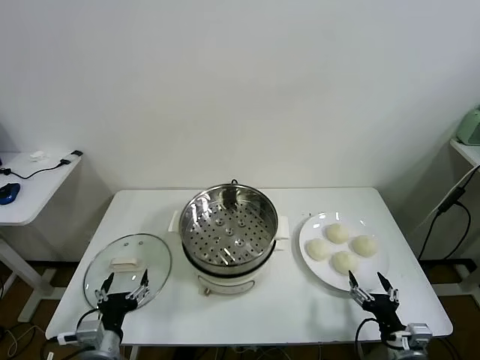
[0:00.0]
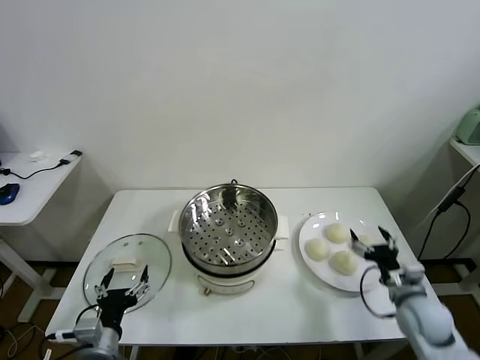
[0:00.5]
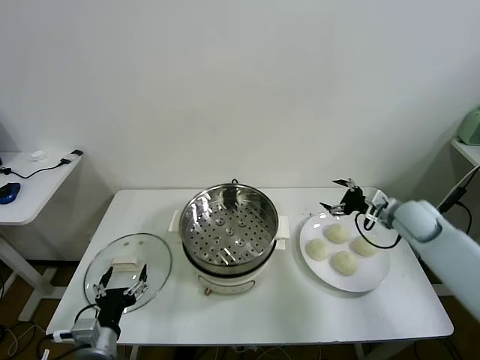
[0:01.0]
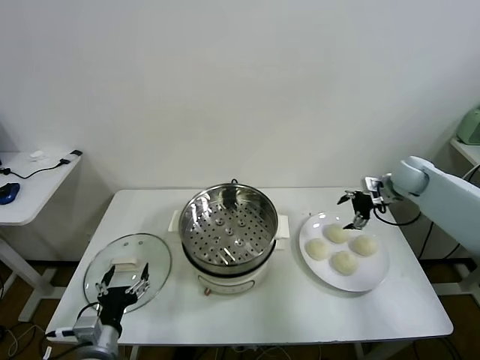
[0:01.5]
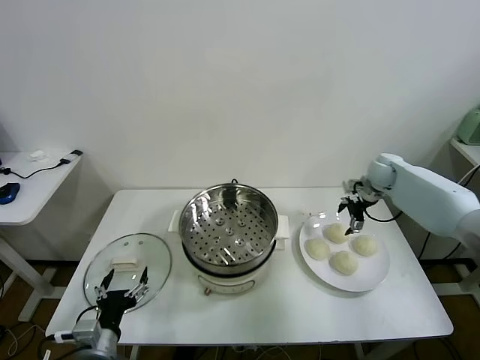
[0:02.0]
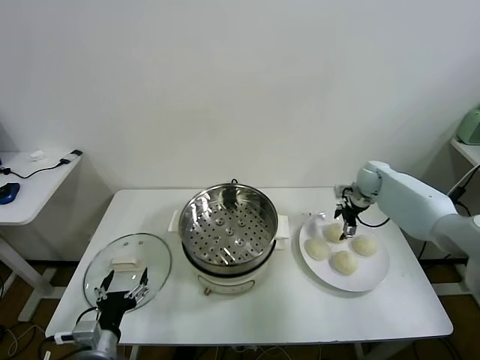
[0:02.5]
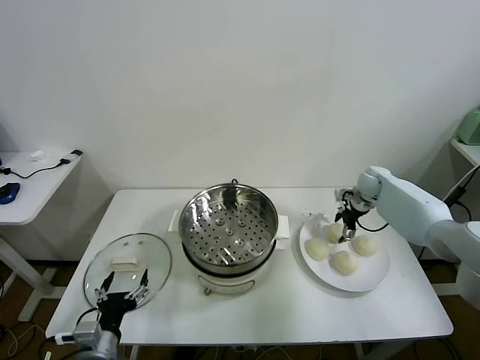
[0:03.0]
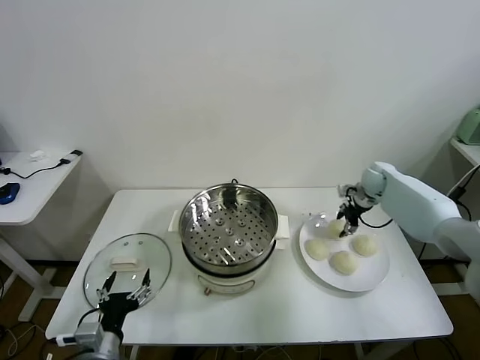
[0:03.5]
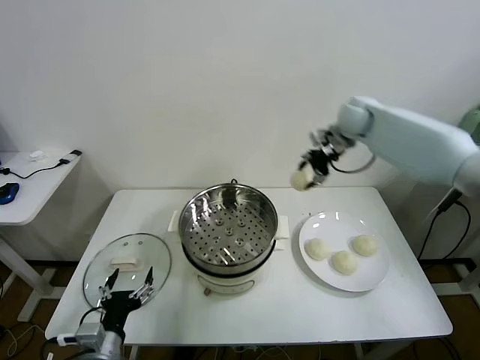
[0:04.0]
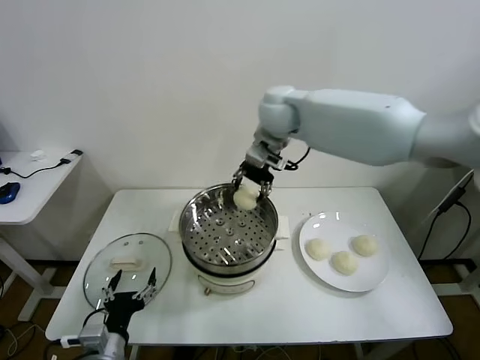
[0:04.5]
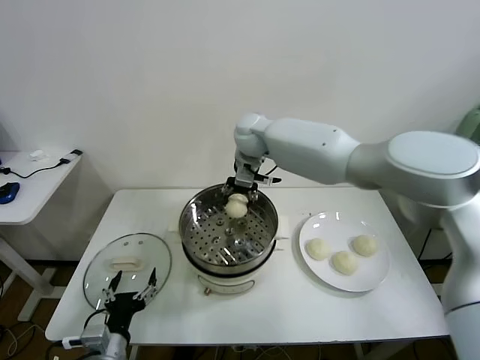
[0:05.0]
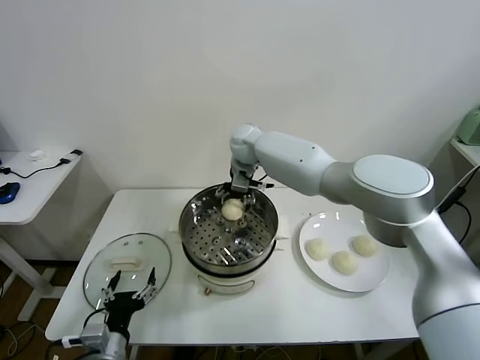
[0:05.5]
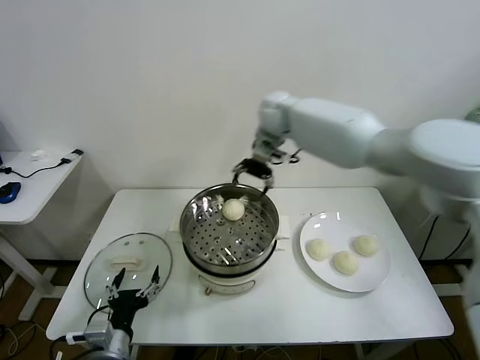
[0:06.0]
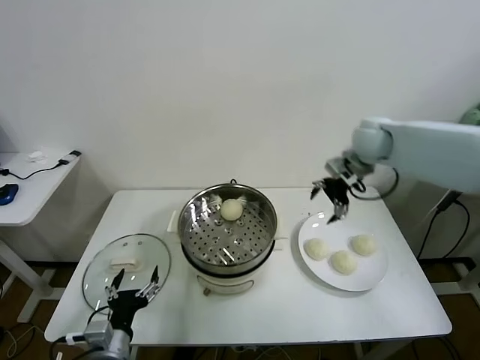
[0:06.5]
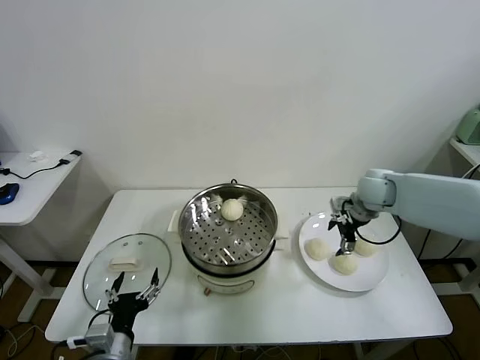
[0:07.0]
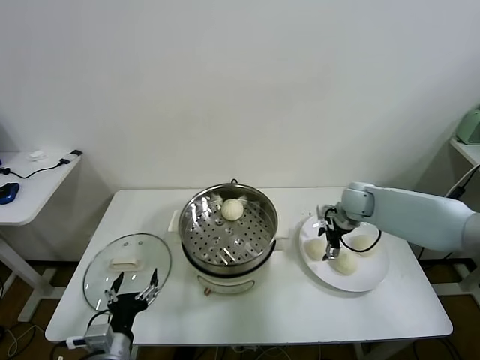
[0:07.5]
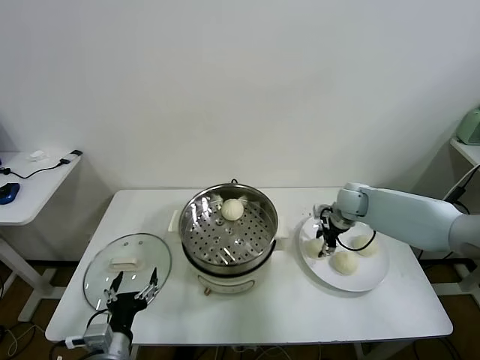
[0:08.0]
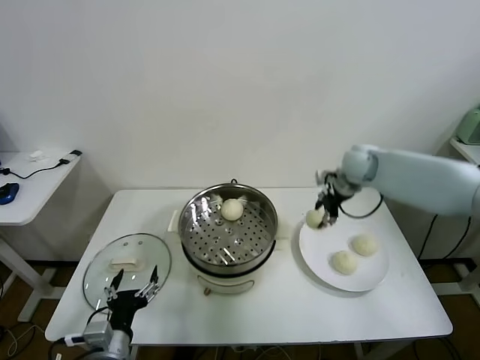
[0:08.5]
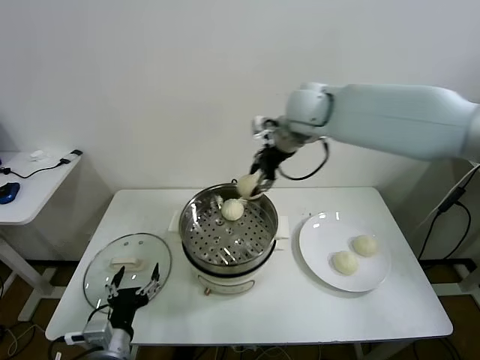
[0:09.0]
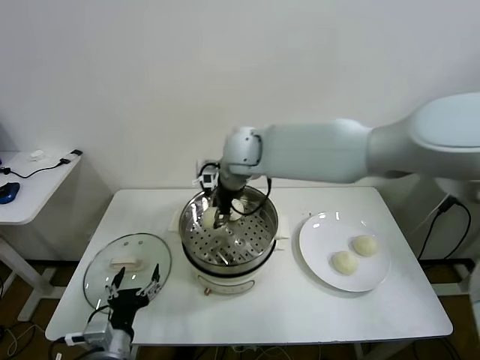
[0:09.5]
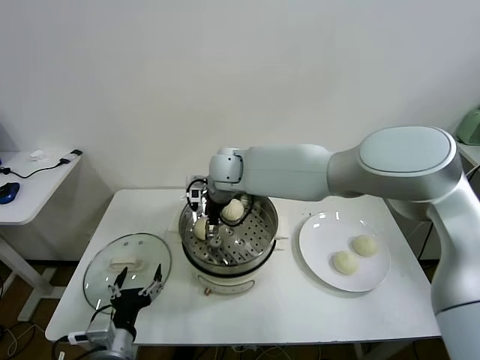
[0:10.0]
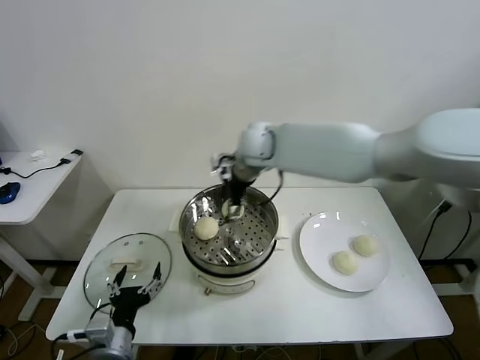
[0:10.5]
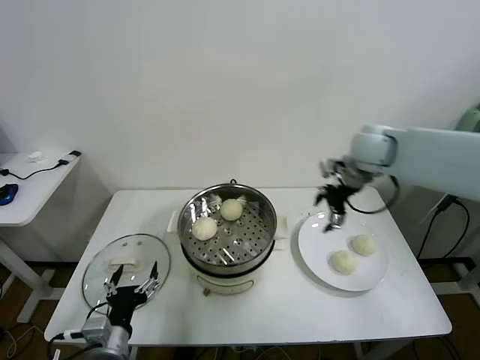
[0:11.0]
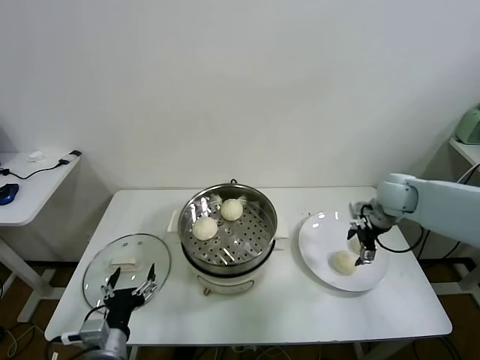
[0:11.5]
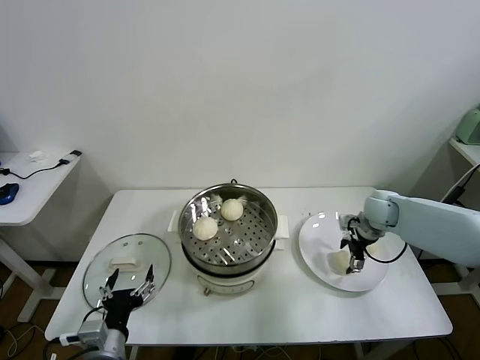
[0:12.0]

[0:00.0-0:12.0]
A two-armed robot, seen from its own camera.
Task of the whole recording: take steamed baozi put them in steamer.
Step, 0:00.0 to 0:03.0: Grasp the baozi in the plate with right gripper.
Step, 0:03.5 to 0:05.5: Place the baozi on the steamer with right gripper.
Step, 0:06.0 to 0:08.0: Grasp the baozi in the plate with right gripper.
Step, 0:08.5 to 0:10.0: Place the baozi on the steamer with right gripper.
0:02.0 to 0:04.0: The right gripper heads upward and to the left, covering approximately 25 cm, and closes its fingers.
0:04.0 to 0:06.0: The right gripper travels to the left by some 5 cm, and opens.
0:06.0 to 0:08.0: The right gripper heads downward and to the right, covering some 30 cm, and closes its fingers.
0:08.0 to 0:10.0: The right gripper is displaced to the left by some 35 cm, and opens its fingers.
0:10.0 to 0:12.0: The right gripper goes roughly 40 cm to the right.

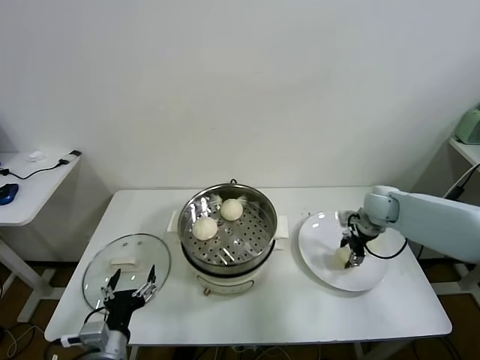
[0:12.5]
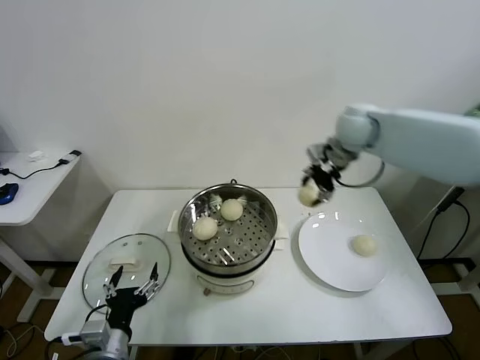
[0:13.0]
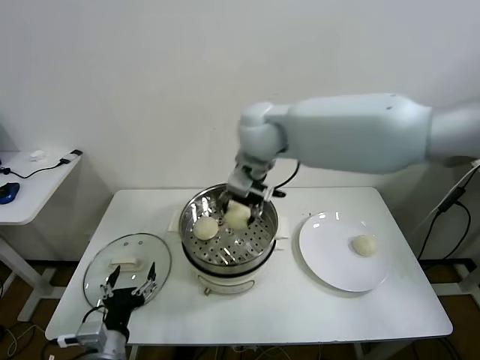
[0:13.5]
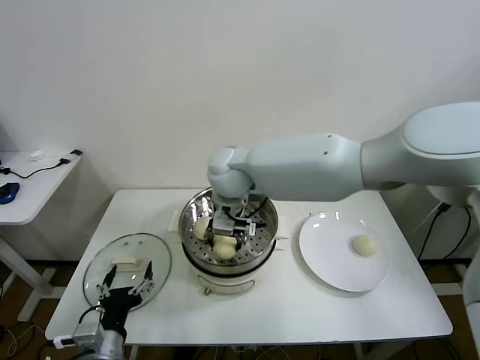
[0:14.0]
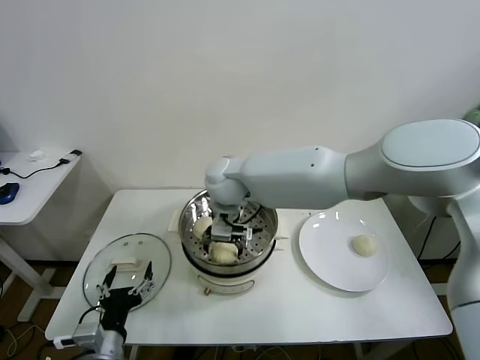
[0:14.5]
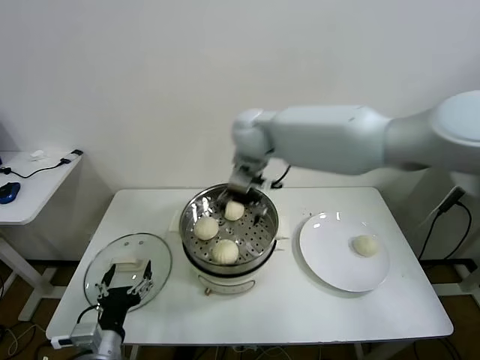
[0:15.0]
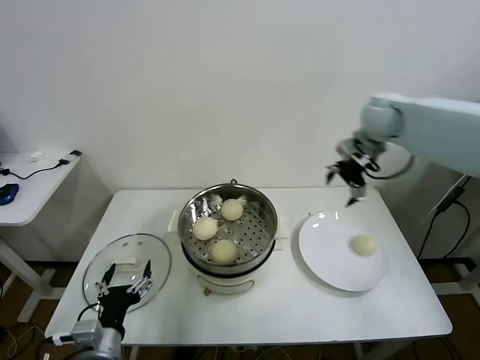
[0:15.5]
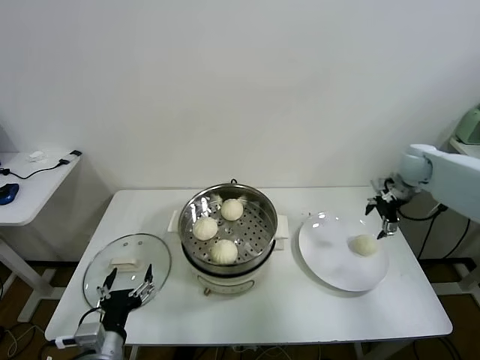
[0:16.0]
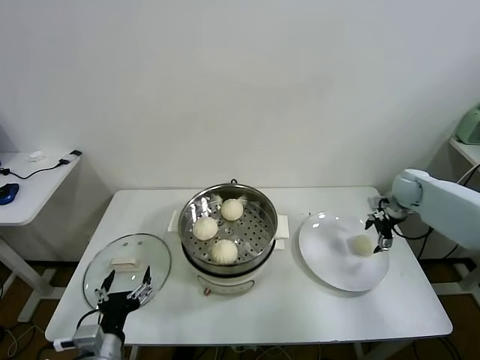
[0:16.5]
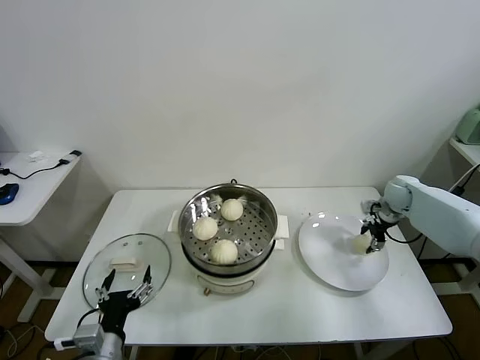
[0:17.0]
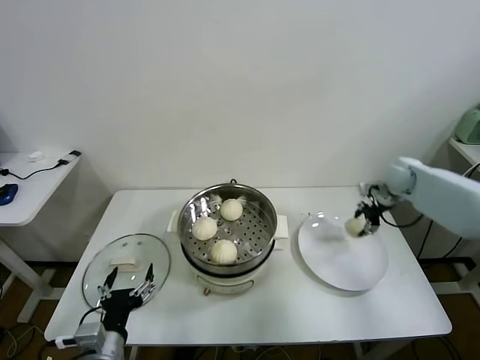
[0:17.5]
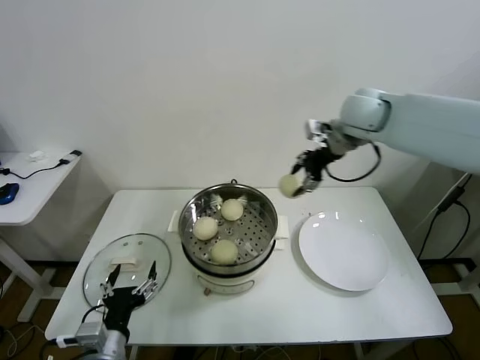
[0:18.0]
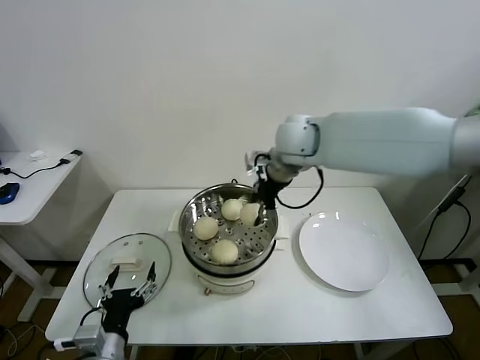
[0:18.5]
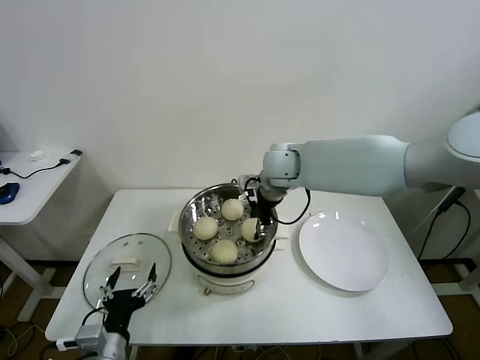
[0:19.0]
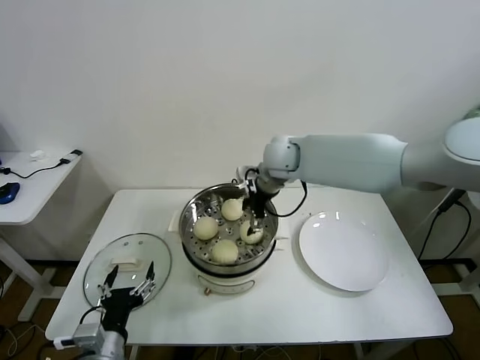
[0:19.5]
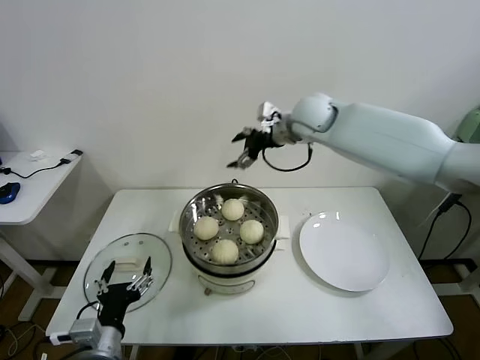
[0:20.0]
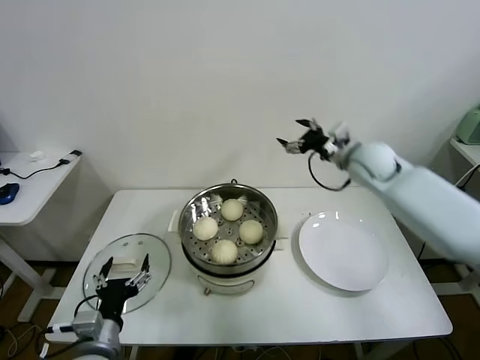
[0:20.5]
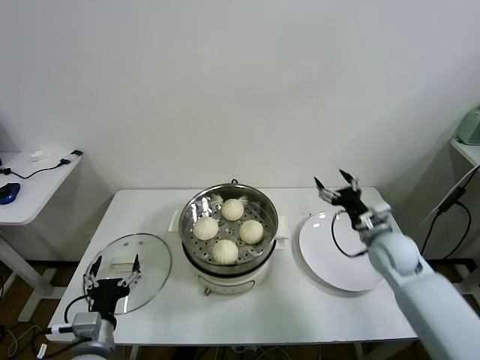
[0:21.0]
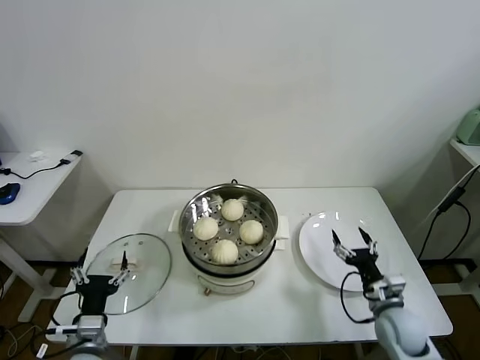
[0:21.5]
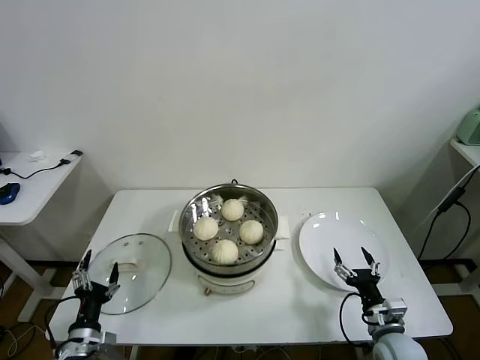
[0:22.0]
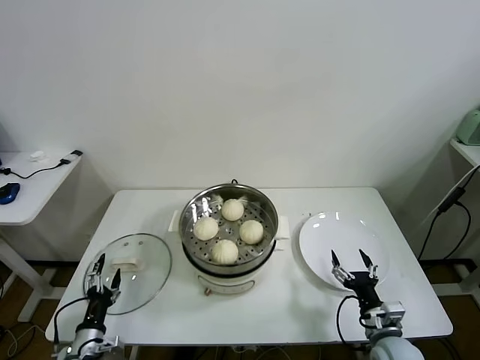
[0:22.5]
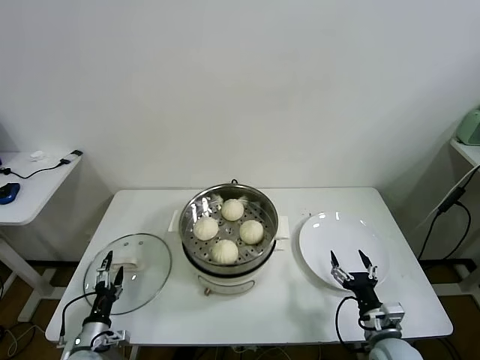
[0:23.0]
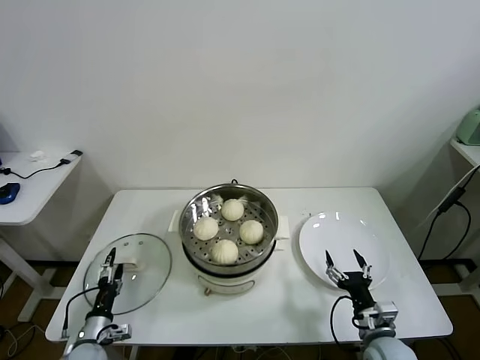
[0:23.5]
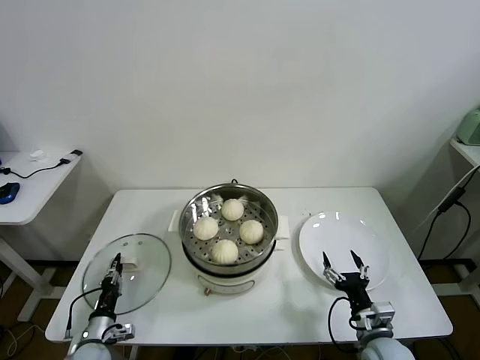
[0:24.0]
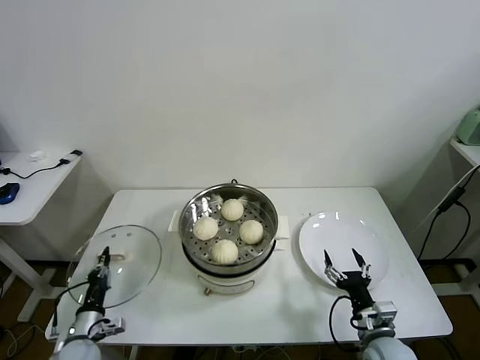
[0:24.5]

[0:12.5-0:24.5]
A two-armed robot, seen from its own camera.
Task of the whole recording: take steamed baozi put them in steamer.
Step, 0:12.5 to 0:14.5: Place the baozi on the steamer with right gripper.
Step, 0:15.0 to 0:17.0: Grasp the baozi in the plate with right gripper.
Step, 0:17.5 to 0:19.0: Place the baozi on the steamer with right gripper.
Step, 0:19.5 to 0:24.0: Grasp the pot lid with left gripper.
0:12.5 to 0:14.5: The right gripper shifts some 40 cm to the left, and opens its fingers.
0:14.5 to 0:16.5: The right gripper heads to the right, covering approximately 50 cm.
0:16.5 to 0:18.5: The right gripper moves to the left and upward, some 40 cm, and closes up.
0:18.5 to 0:20.5: The right gripper shifts about 20 cm to the right and downward, and opens up.
0:20.5 to 0:22.5: The left gripper is displaced downward and to the left by roughly 20 cm. Meanwhile the right gripper travels backward and downward by roughly 40 cm.
0:22.5 to 0:24.5: The left gripper closes its fingers.

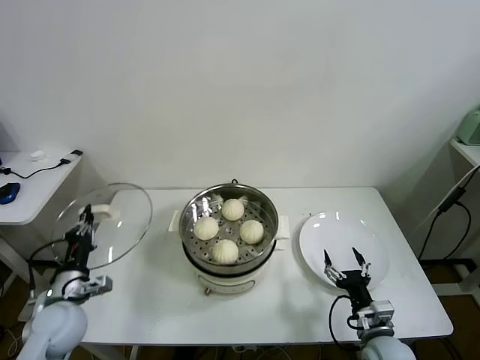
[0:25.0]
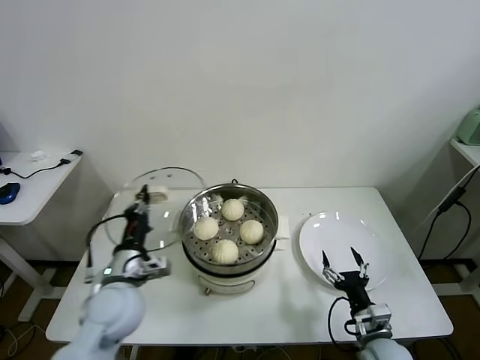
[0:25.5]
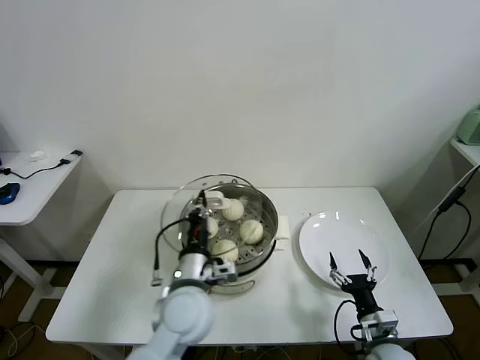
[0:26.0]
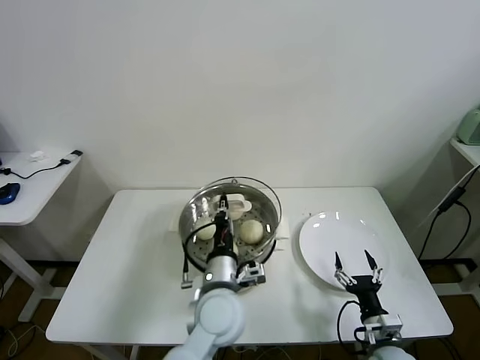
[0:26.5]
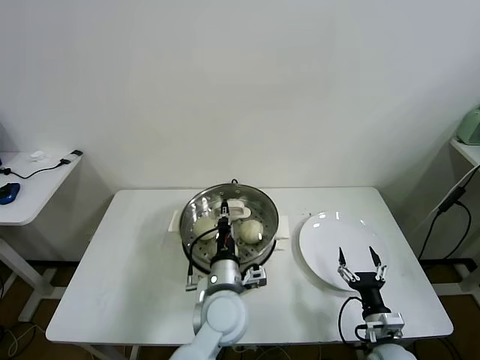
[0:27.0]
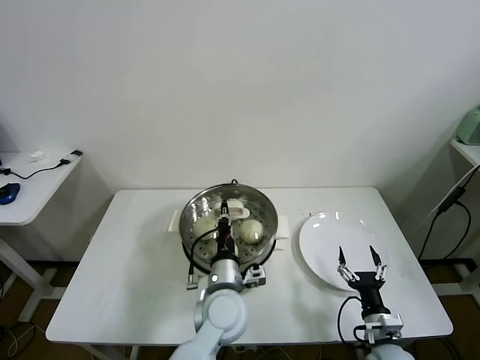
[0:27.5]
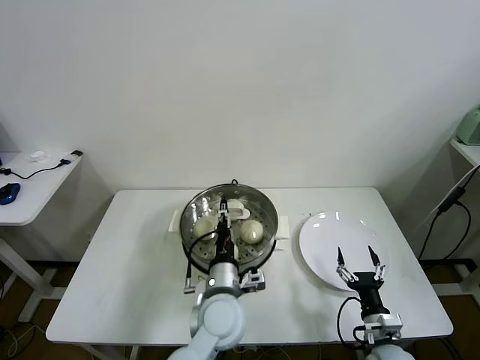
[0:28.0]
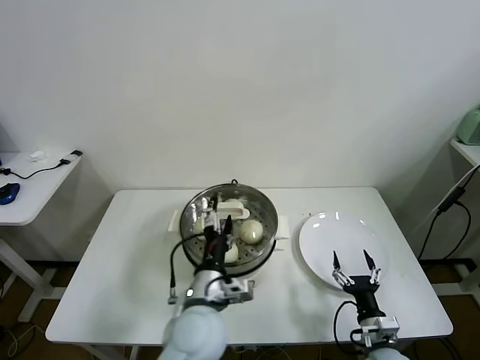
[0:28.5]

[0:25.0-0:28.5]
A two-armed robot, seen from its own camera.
Task of the whole recording: take steamed baozi put them in steamer.
Step, 0:25.0 to 0:27.5: Place the pot lid on the steamer with left gripper.
0:25.0 to 0:27.0: The left gripper travels to the right by about 35 cm.
0:27.0 to 0:28.5: The left gripper shifts by about 5 cm, and opens.
